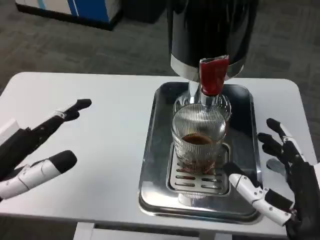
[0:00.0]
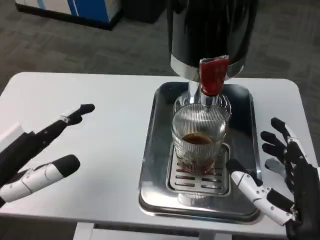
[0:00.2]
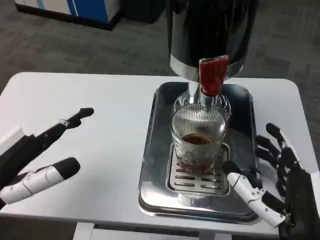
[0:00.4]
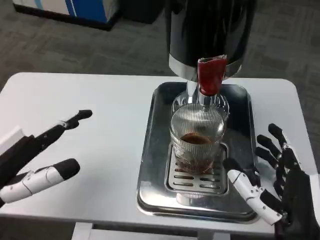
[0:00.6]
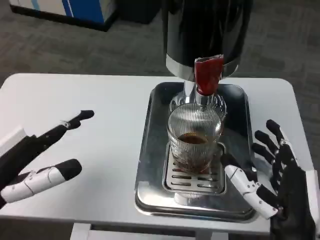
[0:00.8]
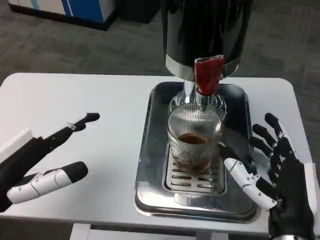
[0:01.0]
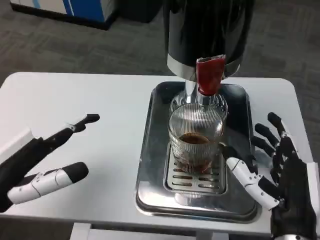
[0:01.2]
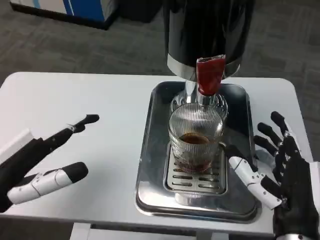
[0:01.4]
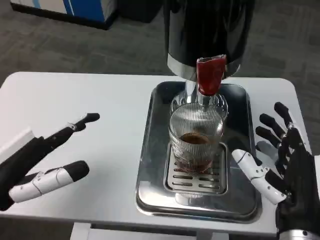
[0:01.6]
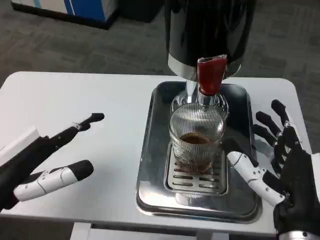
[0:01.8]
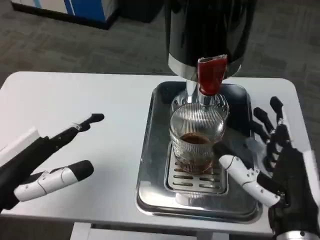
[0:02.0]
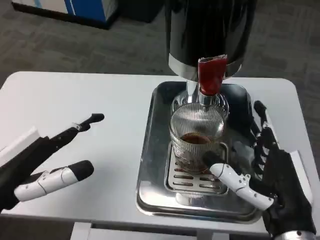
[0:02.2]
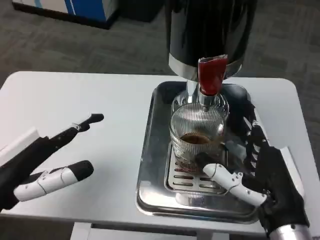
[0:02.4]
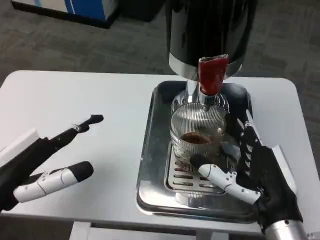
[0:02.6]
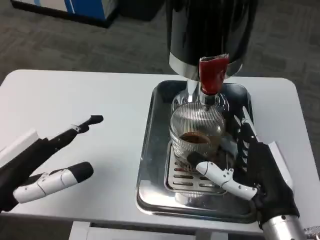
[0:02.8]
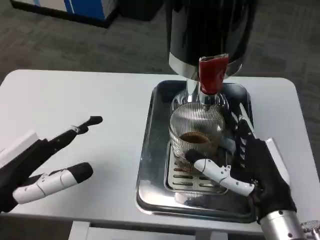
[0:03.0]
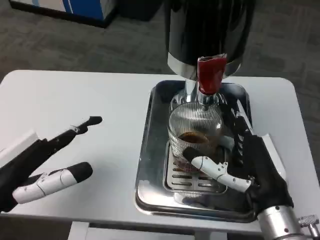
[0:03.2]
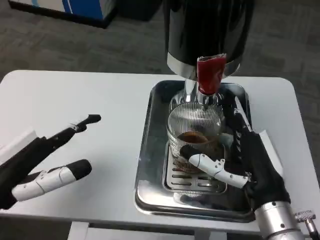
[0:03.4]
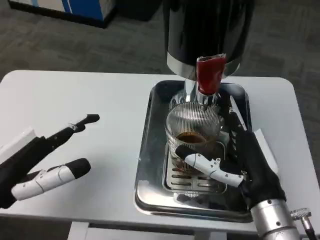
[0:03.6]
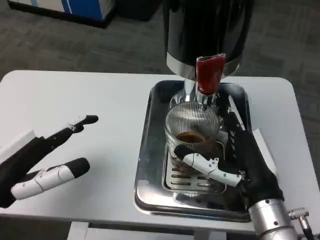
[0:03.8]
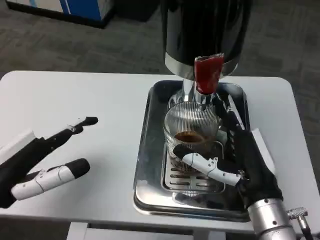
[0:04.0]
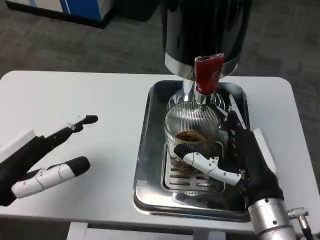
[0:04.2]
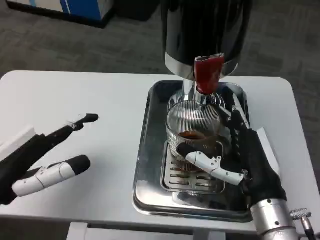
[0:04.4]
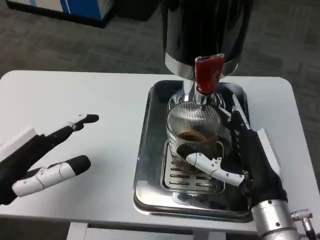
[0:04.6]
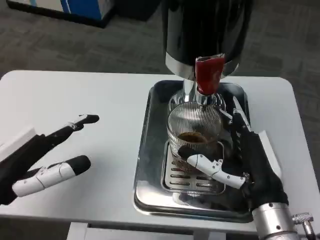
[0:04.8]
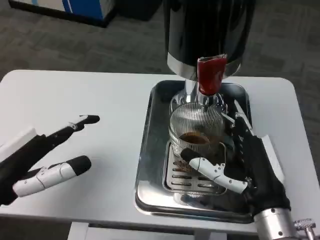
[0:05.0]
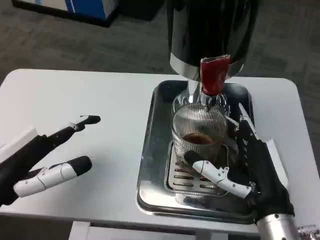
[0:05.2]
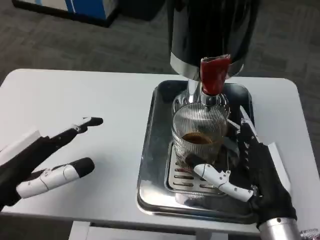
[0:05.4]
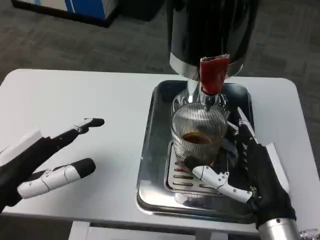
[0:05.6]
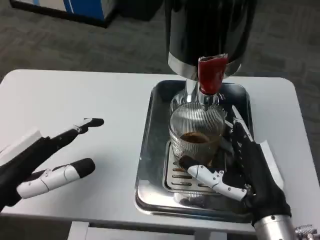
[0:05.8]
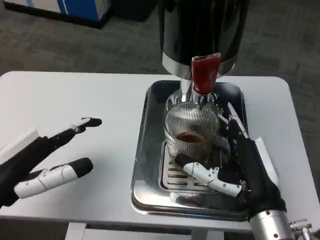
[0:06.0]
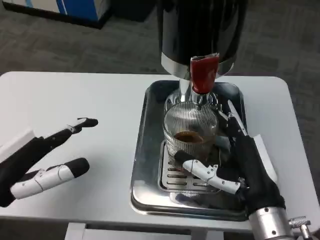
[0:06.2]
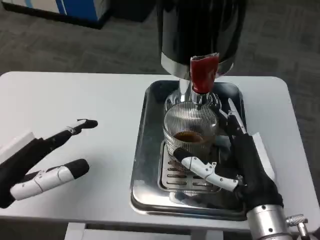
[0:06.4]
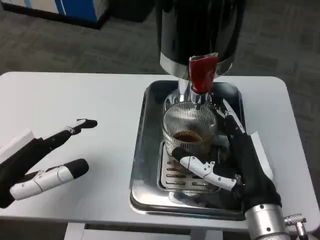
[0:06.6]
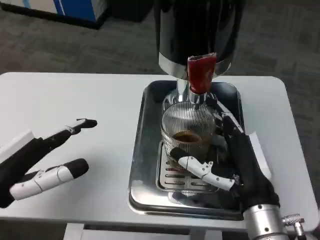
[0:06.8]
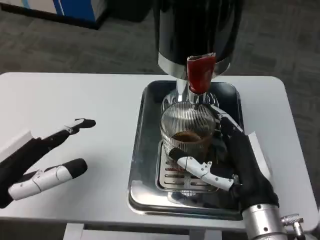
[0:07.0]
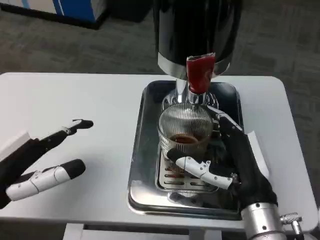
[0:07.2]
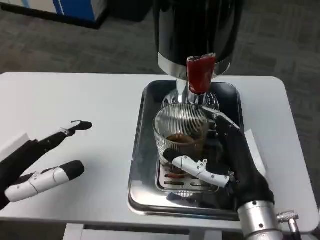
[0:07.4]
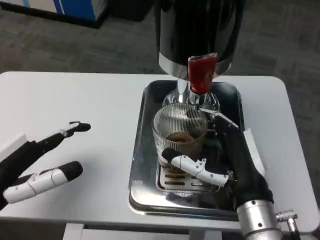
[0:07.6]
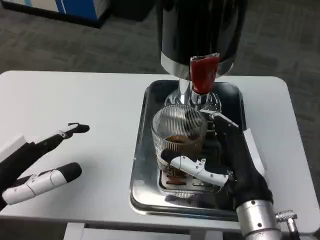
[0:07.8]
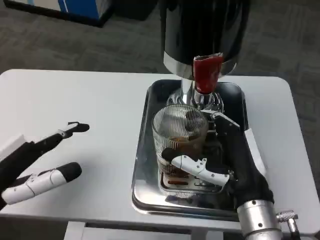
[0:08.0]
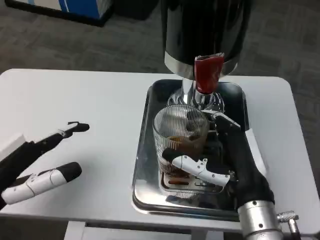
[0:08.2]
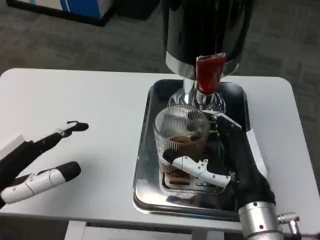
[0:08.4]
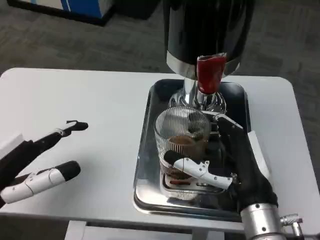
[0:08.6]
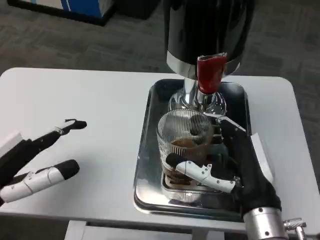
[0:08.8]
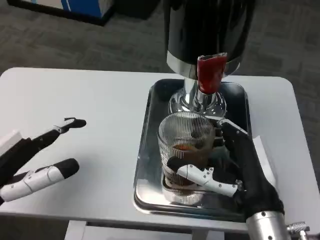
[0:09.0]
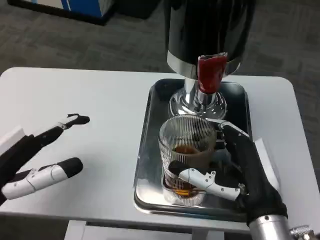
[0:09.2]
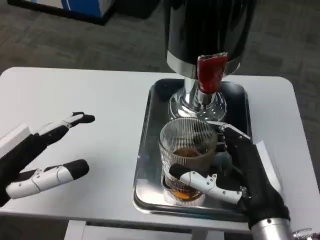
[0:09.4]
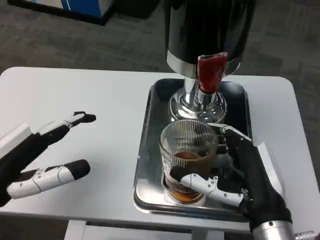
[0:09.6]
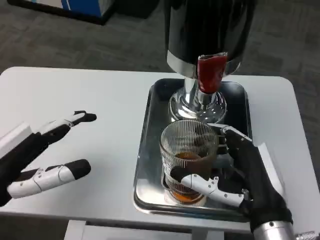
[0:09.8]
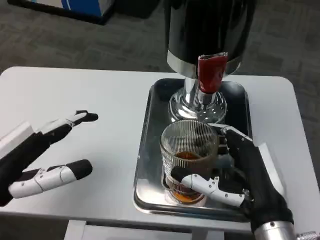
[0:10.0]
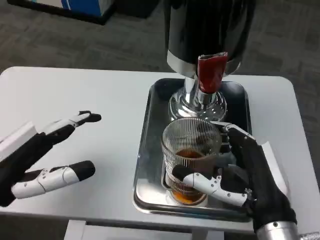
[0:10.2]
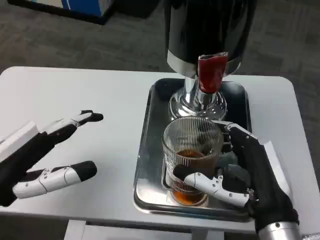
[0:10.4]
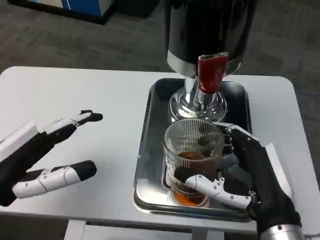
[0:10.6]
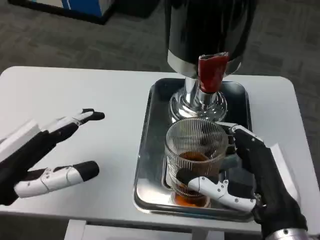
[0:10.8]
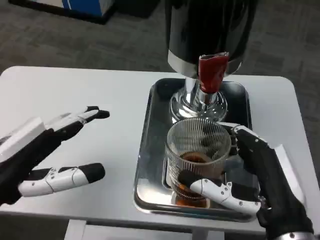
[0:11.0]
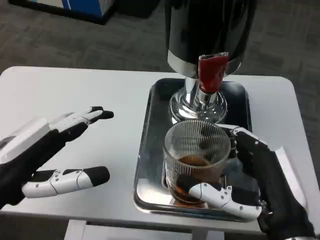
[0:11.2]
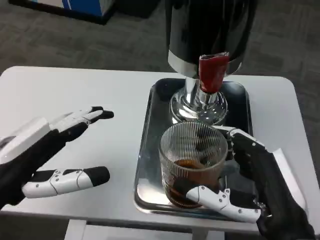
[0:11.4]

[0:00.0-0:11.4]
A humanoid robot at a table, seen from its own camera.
Task of the whole recording: Grasp the cup under the faucet to collect the drink, then remove the cup.
0:08.6 to 0:10.0: The hands move only a little.
0:10.0 to 0:11.4: The right hand moves some 5 cm.

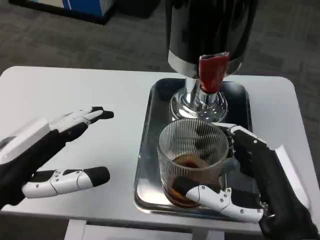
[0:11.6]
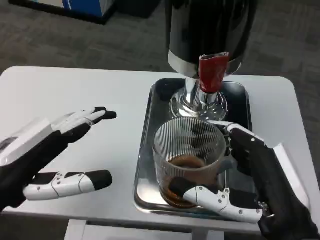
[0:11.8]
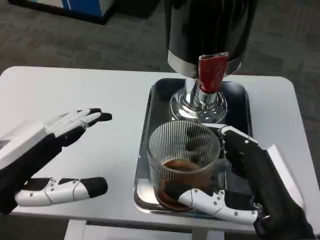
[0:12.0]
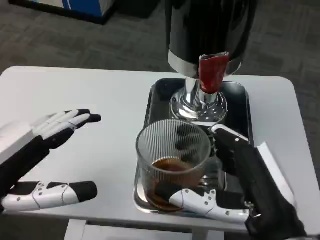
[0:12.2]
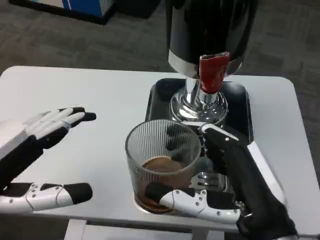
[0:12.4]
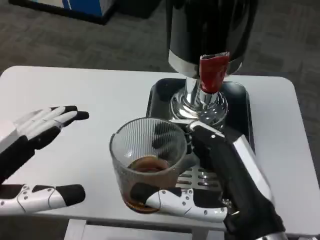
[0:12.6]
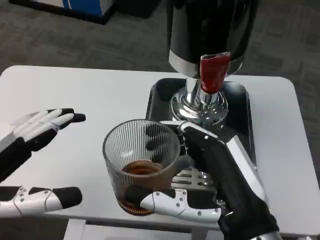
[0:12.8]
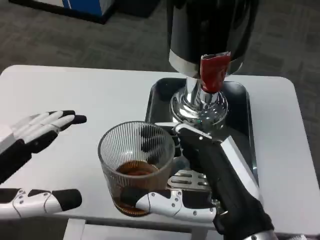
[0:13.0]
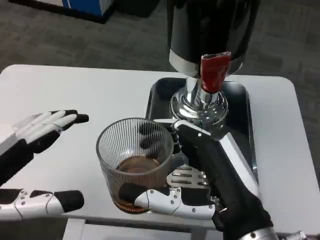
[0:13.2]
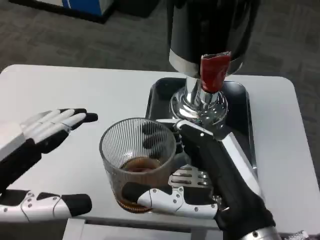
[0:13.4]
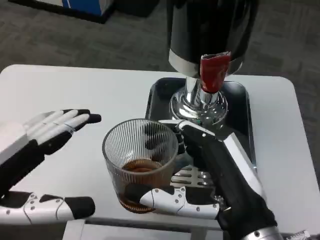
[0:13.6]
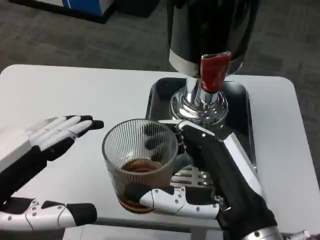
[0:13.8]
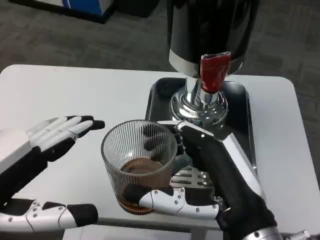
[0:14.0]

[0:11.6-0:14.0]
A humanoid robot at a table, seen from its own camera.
Task of the whole recording: Grasp the cup under the faucet to collect the drink, then remove the cup.
0:11.6 to 0:12.8: The left hand ends up about 5 cm from where it was.
0:12.8 to 0:14.0: The hands make only small movements.

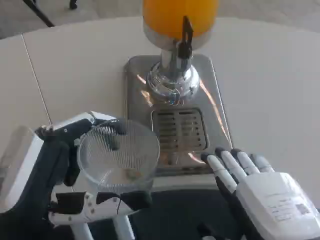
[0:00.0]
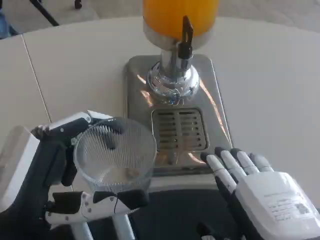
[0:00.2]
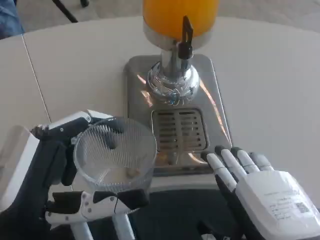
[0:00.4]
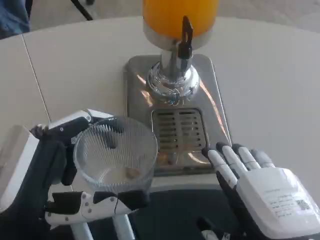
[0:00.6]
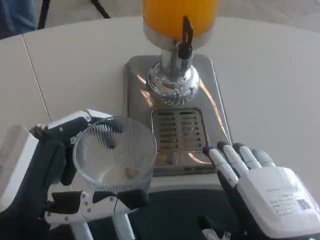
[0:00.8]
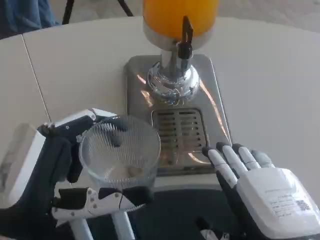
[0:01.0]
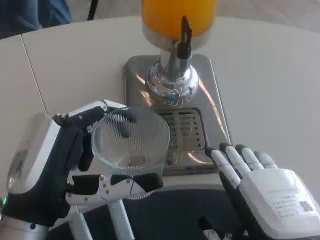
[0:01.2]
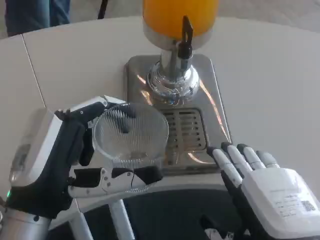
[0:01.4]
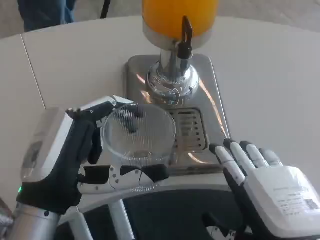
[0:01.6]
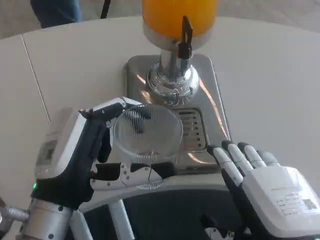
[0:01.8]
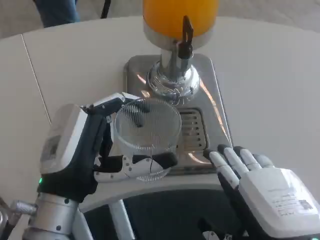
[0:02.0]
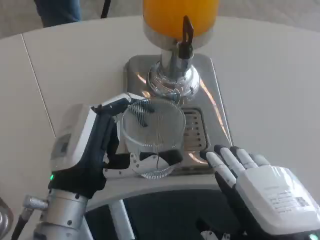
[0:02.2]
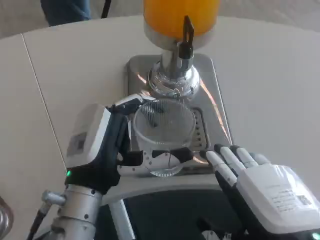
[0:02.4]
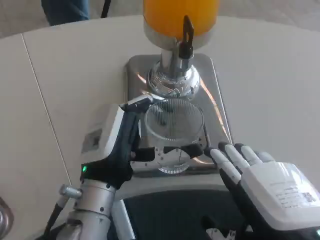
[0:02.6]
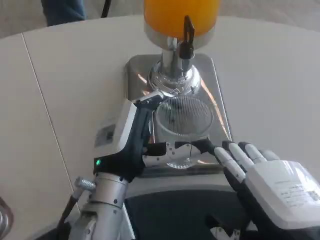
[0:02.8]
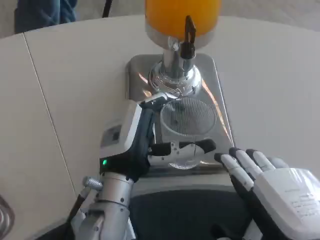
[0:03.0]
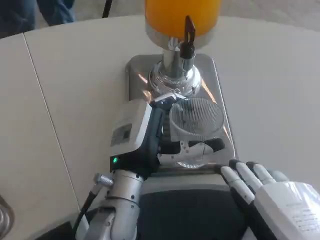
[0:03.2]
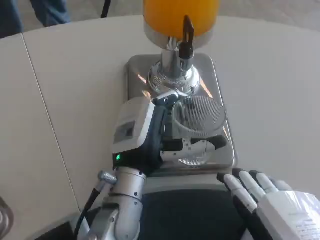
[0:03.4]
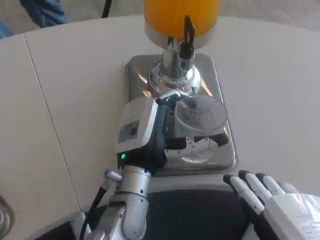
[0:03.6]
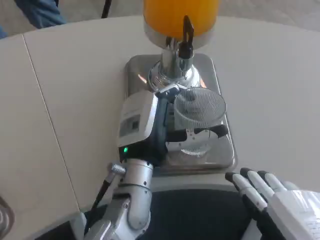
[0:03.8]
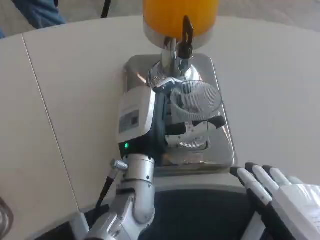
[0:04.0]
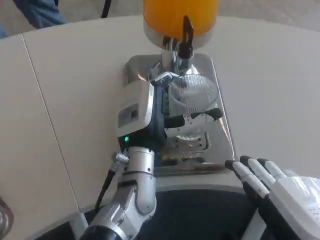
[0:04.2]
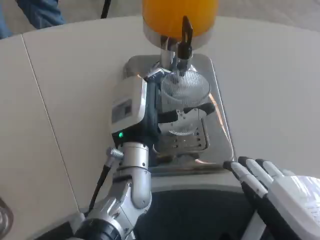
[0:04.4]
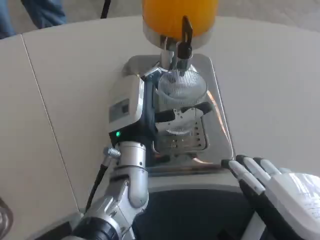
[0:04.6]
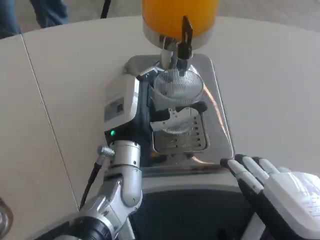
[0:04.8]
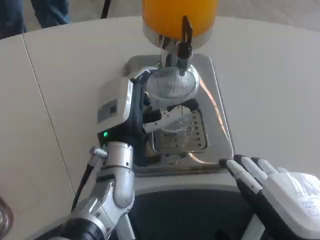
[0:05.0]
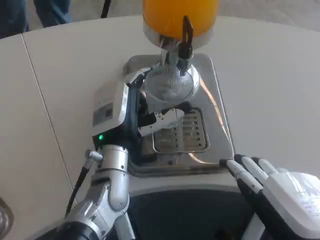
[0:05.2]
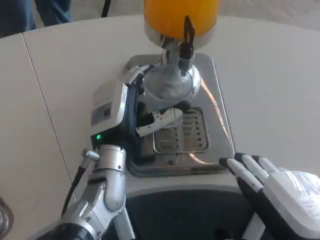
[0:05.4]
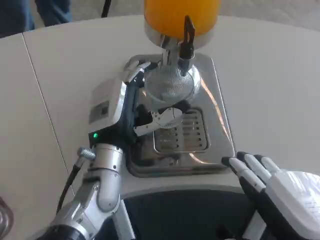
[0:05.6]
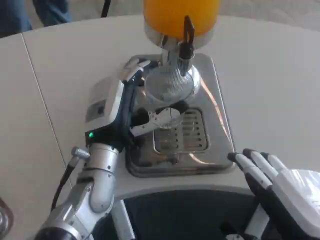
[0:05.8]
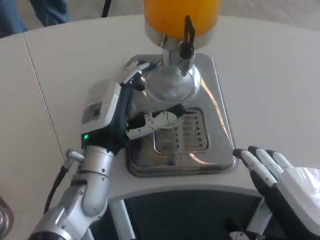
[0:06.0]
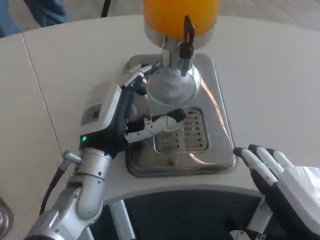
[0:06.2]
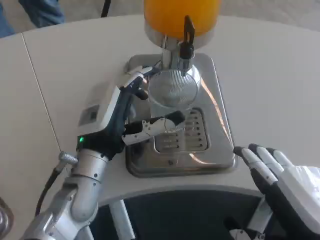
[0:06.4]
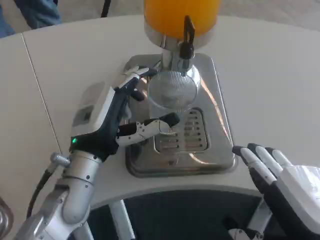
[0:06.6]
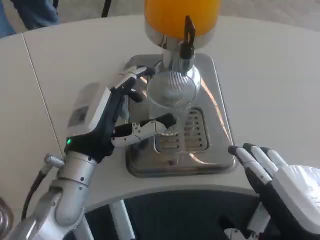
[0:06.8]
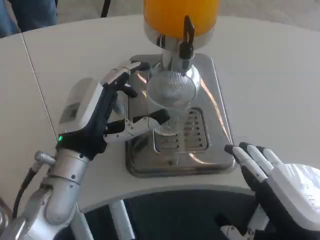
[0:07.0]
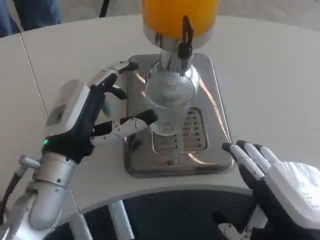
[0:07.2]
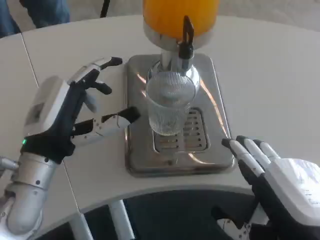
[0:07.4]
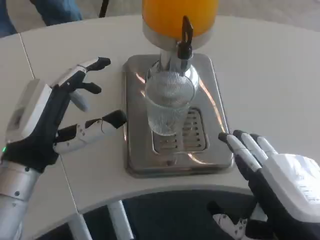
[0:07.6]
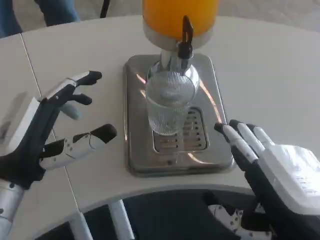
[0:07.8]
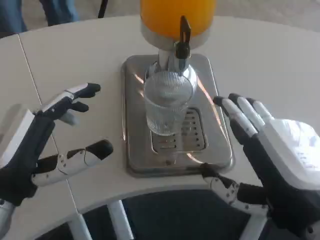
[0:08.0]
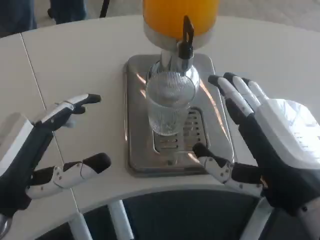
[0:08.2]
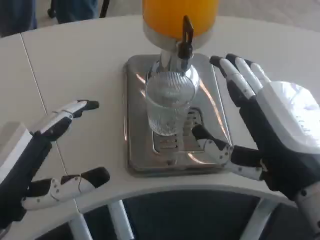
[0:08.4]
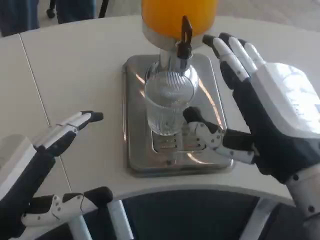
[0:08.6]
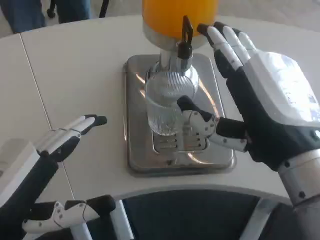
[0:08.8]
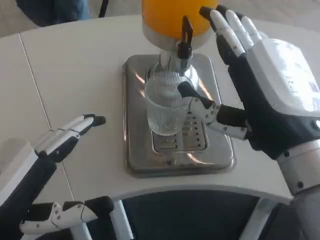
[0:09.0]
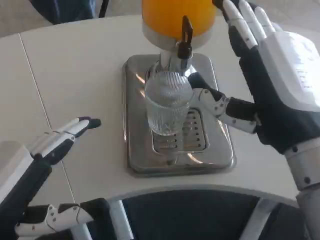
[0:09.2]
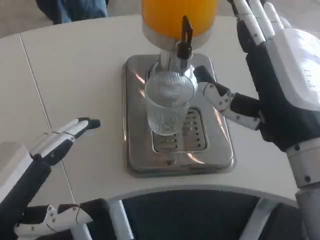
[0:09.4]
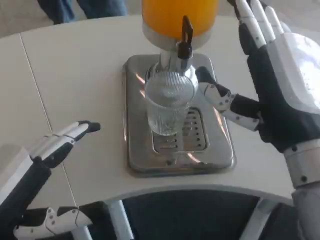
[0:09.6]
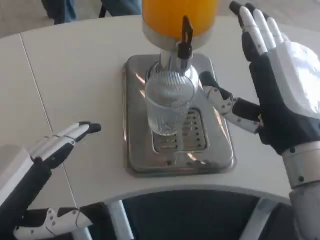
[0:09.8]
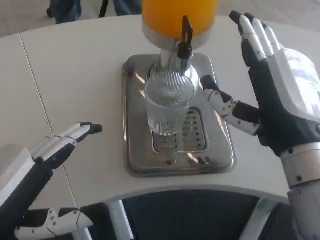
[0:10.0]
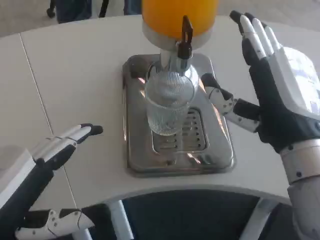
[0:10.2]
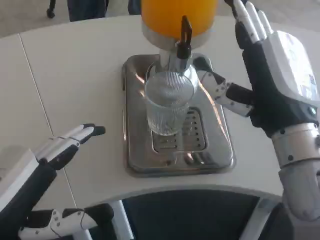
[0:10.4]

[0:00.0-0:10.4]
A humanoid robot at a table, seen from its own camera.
Task of the whole recording: Grasp the cup under the faucet to collect the drink, then remove the cup.
0:01.4 to 0:03.0: The left hand is displaced forward and to the right by roughly 15 cm.
0:03.0 to 0:04.4: The left hand goes roughly 5 cm forward.
0:04.4 to 0:06.0: The left hand moves to the left, some 5 cm.
0:06.0 to 0:07.4: The left hand shifts roughly 10 cm to the left.
0:07.4 to 0:09.0: The right hand heads forward and upward, covering about 10 cm. Meanwhile the left hand travels backward by about 10 cm.
0:09.0 to 0:10.4: The right hand moves forward, some 5 cm.
